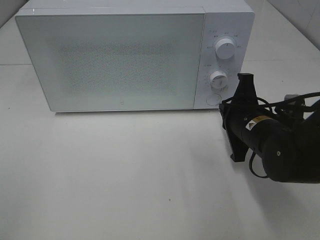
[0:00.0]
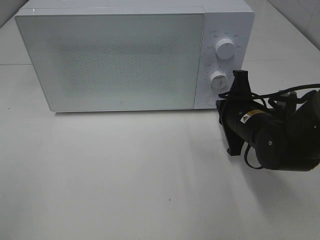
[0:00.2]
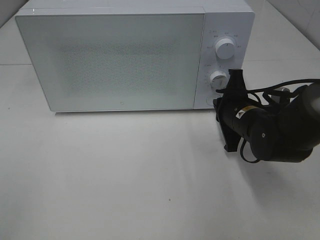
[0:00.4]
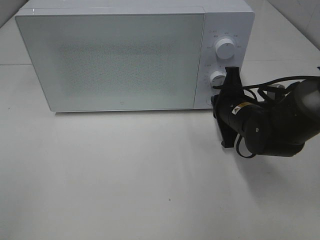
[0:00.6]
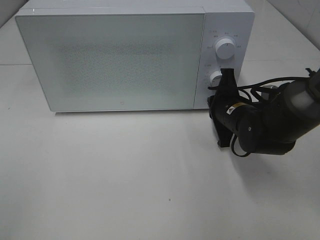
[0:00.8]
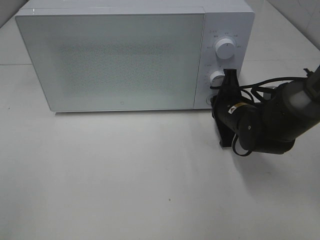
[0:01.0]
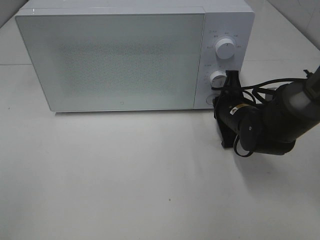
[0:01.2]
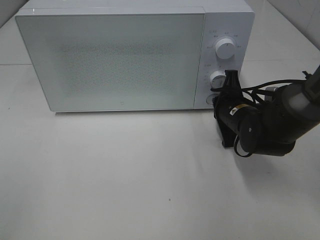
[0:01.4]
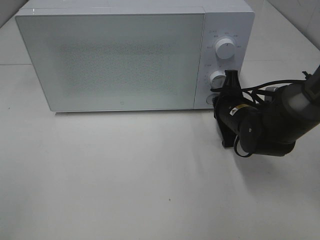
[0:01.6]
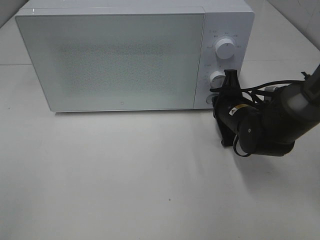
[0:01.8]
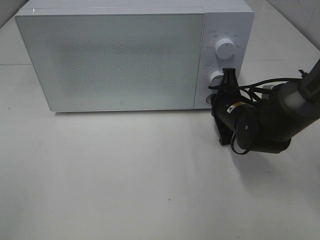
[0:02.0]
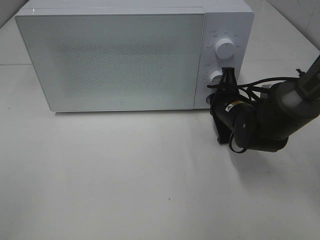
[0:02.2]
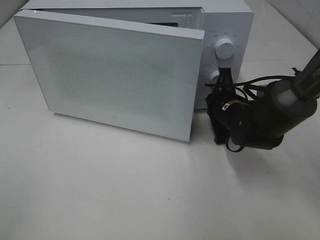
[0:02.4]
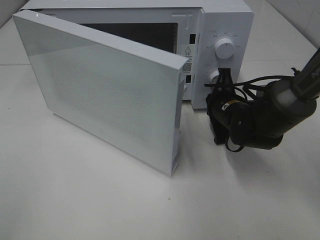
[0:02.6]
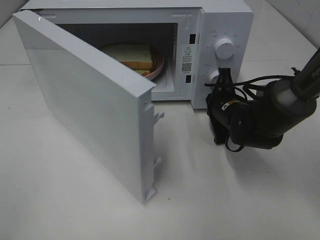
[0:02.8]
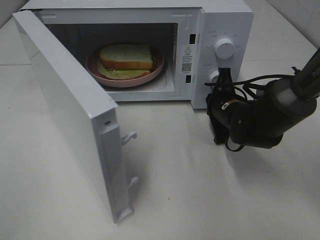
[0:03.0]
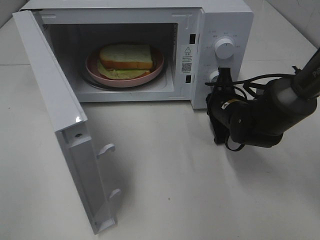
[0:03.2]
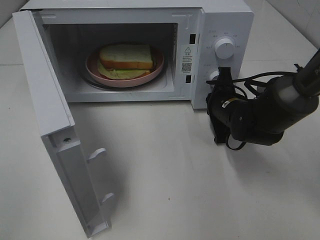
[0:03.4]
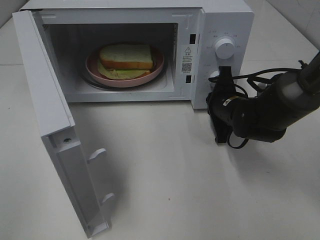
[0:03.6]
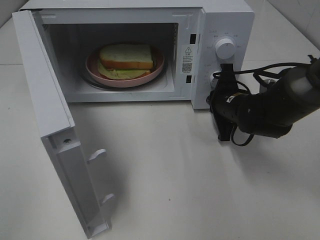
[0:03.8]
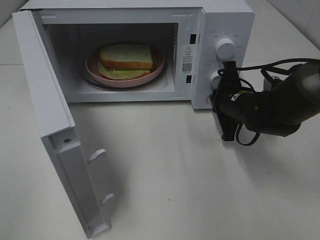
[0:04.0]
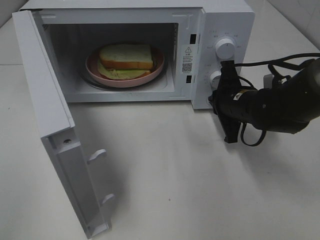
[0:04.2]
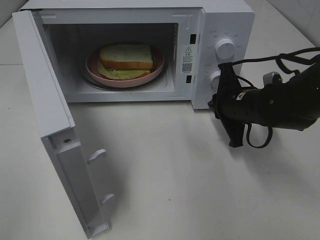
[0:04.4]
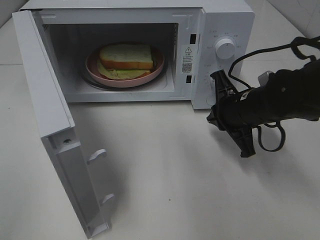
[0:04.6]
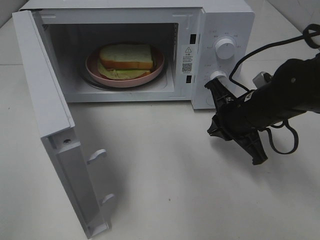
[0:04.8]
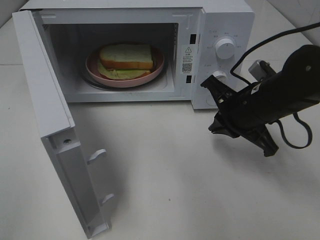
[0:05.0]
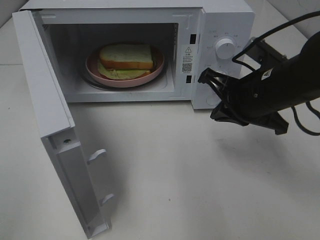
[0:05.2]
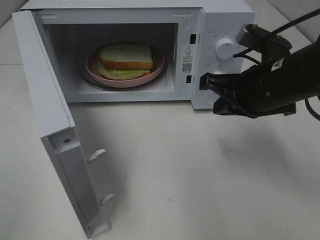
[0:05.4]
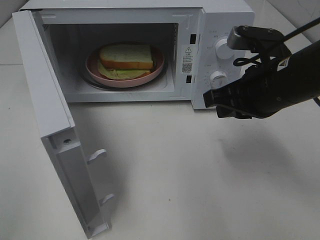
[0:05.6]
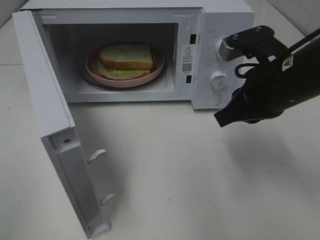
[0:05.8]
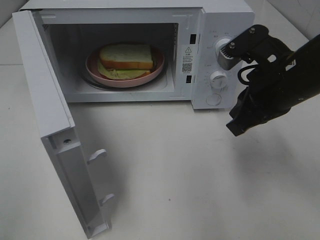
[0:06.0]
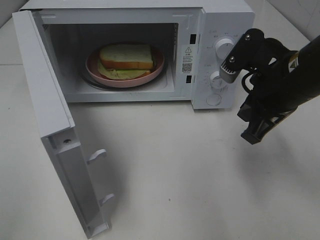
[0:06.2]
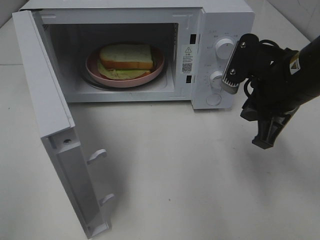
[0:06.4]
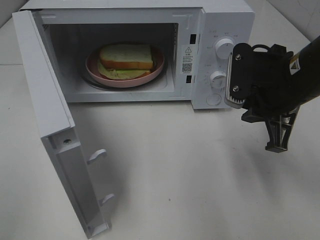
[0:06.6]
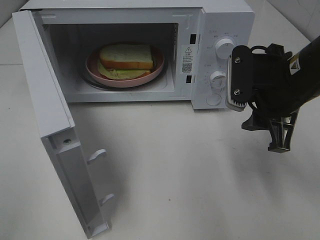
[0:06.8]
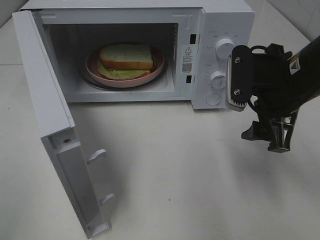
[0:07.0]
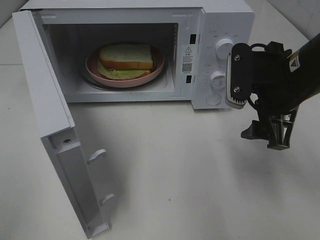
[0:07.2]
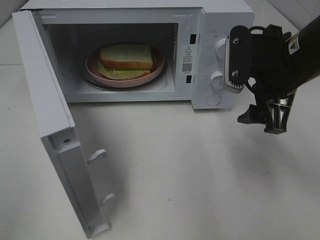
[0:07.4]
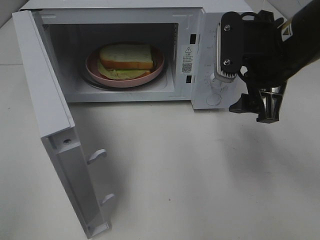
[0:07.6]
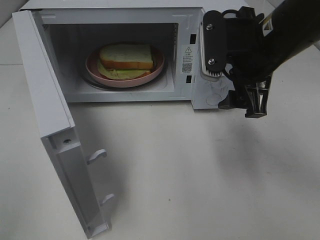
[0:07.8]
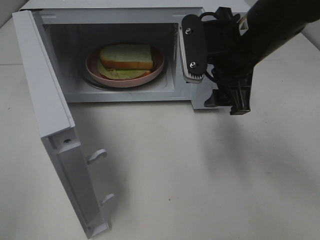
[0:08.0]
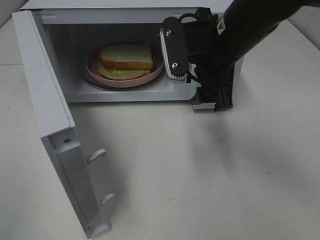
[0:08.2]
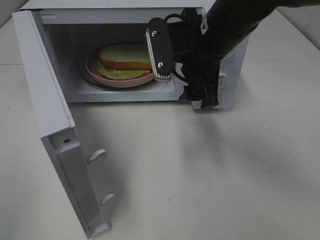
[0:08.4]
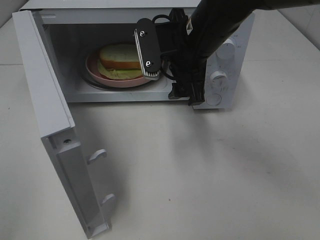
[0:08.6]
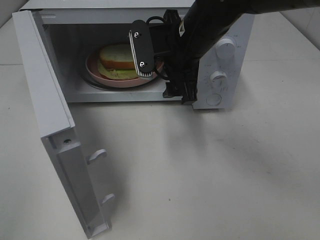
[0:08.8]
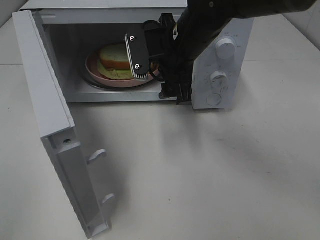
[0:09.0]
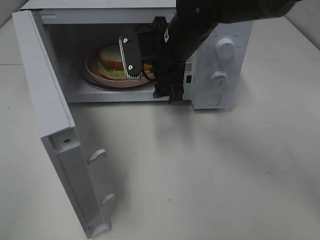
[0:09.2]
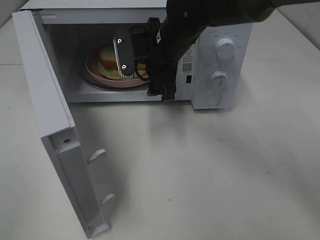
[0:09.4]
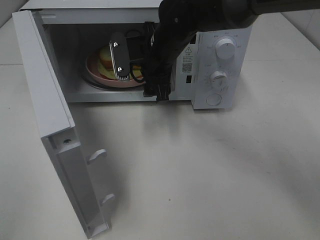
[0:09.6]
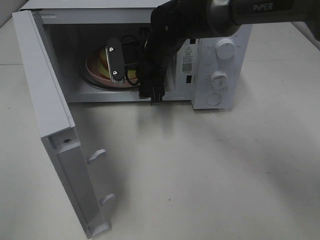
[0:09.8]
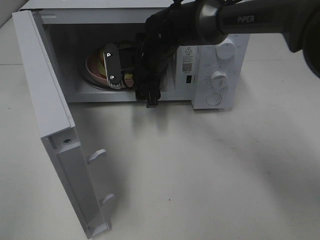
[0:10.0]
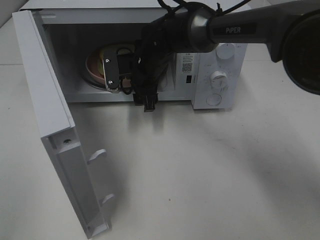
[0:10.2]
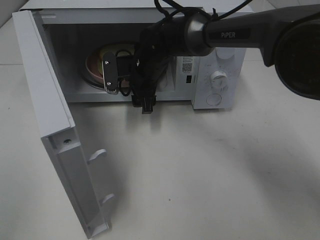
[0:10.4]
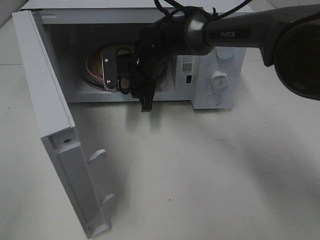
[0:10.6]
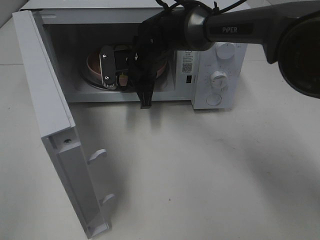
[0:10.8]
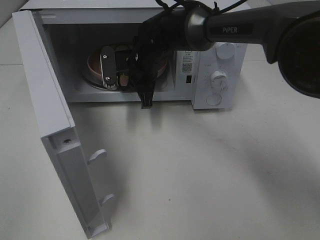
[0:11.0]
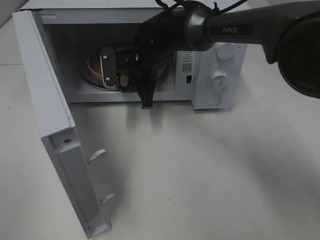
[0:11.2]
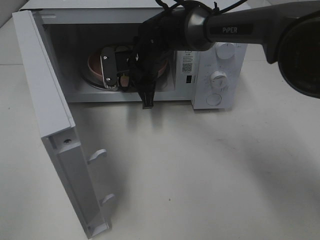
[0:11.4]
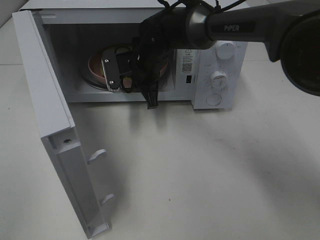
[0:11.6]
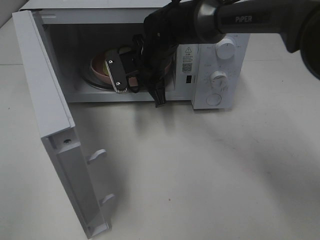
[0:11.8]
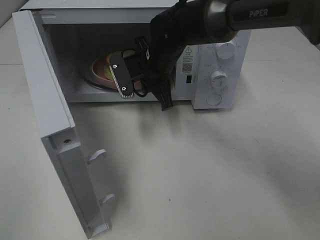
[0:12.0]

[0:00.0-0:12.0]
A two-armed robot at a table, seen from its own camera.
Task of the whole recording: Heat Sandwich.
Step, 0:00.0 to 0:04.4: Right hand: press the switch.
Step, 0:04.6 to 0:11.0: Right hand: grab the plate with the sandwich.
0:00.0 to 0:01.6: The right gripper goes some 5 cm forward.
0:03.0 to 0:04.4: The right gripper ends up roughly 5 cm from where it was.
0:04.4 to 0:06.0: The right gripper travels upward and backward by some 15 cm.
0:06.0 to 0:07.6: The right gripper opens up.
0:07.6 to 0:09.0: The right gripper heads to the left and forward, covering some 15 cm.
0:09.0 to 0:10.4: The right gripper travels downward, forward and to the left by roughly 15 cm.
0:10.4 to 0:12.0: The right gripper closes its fingers.

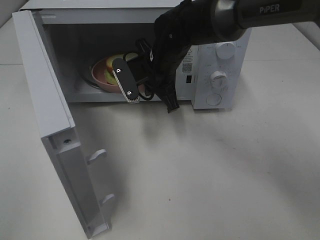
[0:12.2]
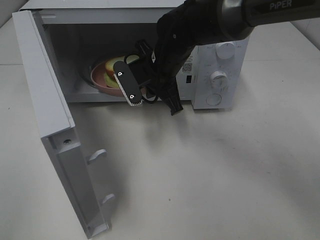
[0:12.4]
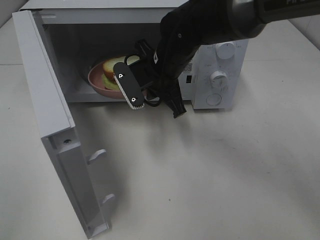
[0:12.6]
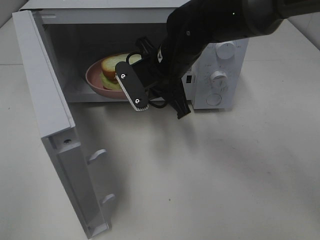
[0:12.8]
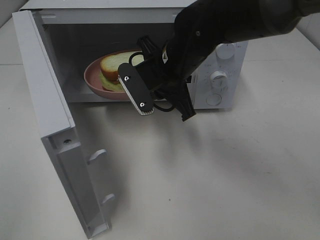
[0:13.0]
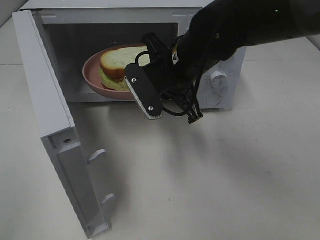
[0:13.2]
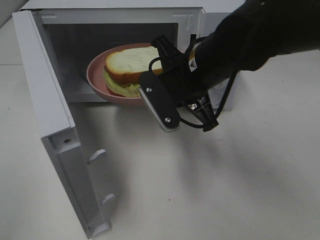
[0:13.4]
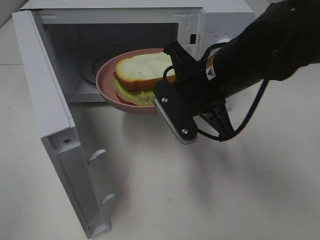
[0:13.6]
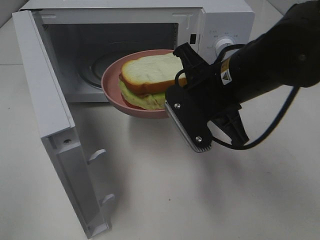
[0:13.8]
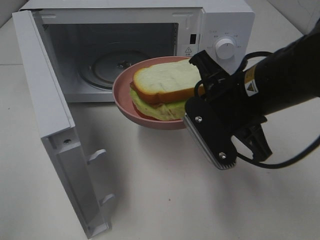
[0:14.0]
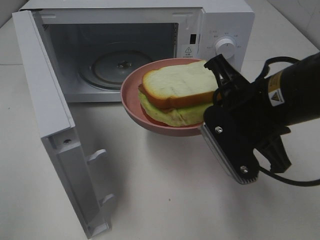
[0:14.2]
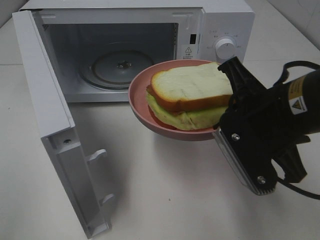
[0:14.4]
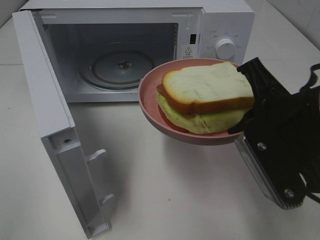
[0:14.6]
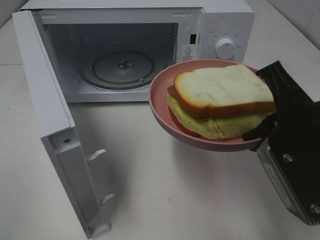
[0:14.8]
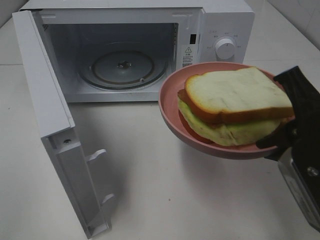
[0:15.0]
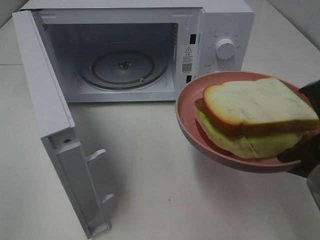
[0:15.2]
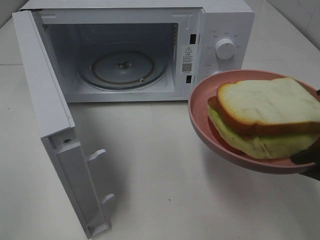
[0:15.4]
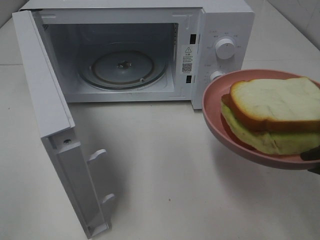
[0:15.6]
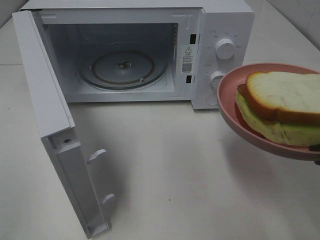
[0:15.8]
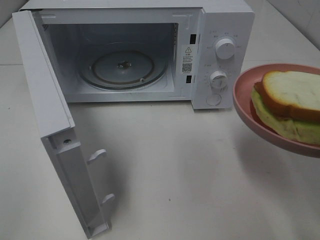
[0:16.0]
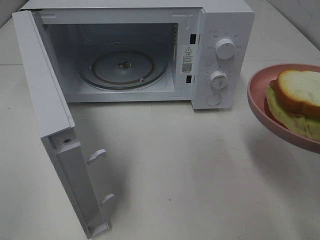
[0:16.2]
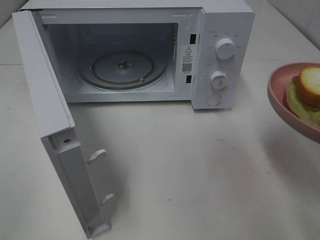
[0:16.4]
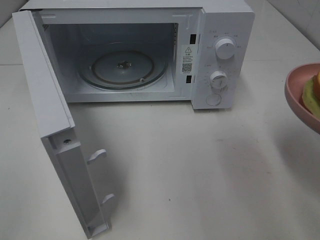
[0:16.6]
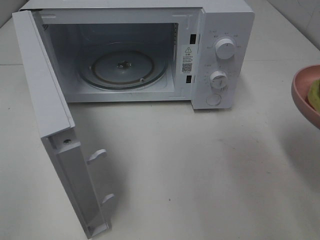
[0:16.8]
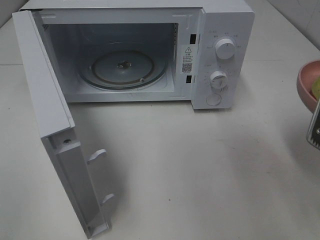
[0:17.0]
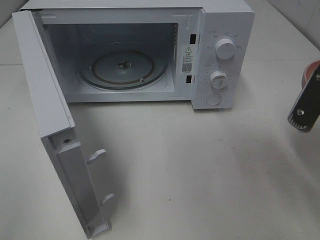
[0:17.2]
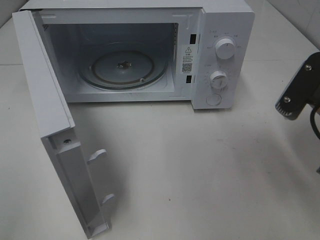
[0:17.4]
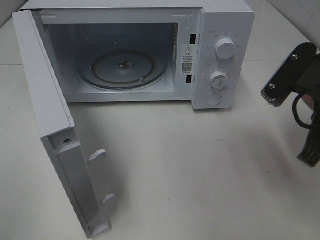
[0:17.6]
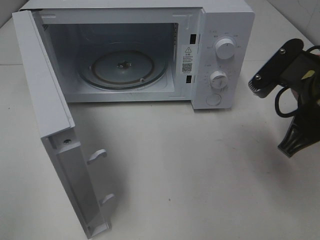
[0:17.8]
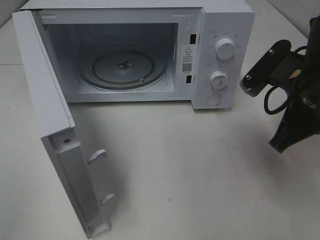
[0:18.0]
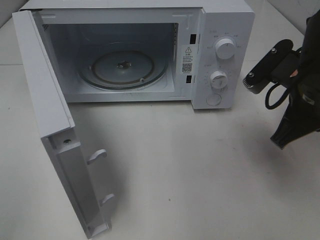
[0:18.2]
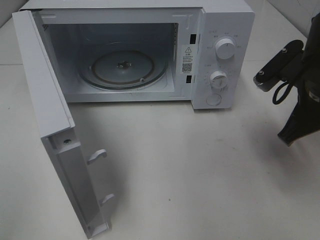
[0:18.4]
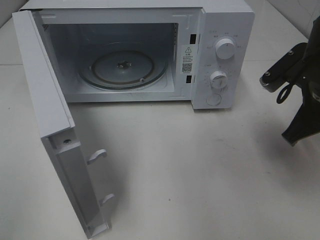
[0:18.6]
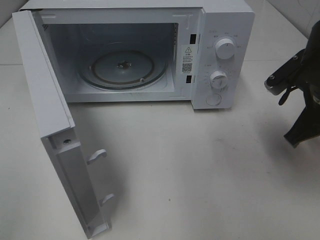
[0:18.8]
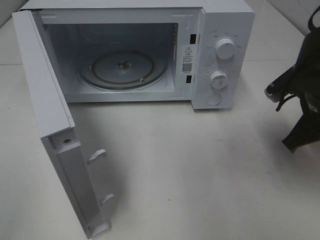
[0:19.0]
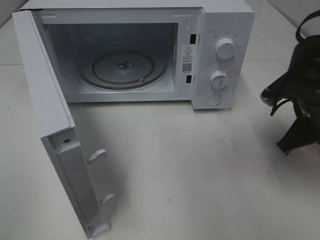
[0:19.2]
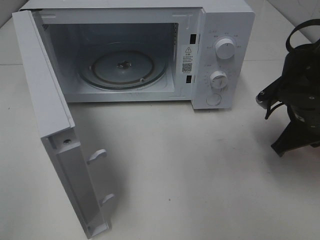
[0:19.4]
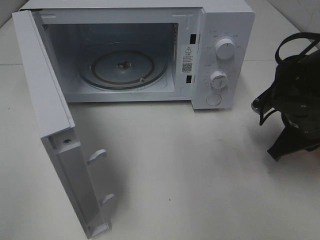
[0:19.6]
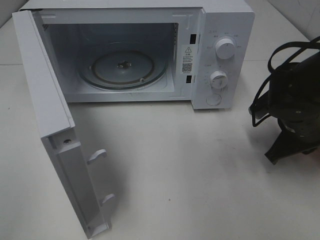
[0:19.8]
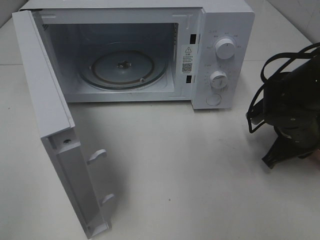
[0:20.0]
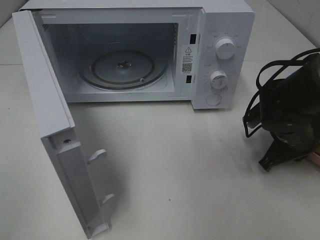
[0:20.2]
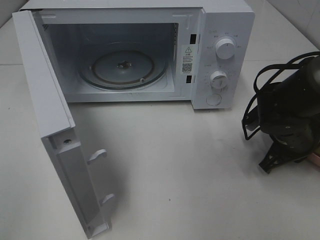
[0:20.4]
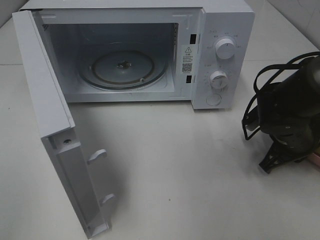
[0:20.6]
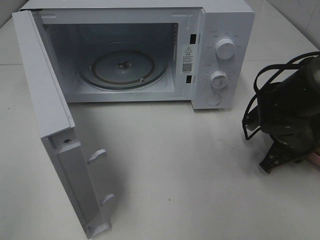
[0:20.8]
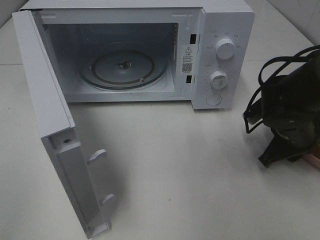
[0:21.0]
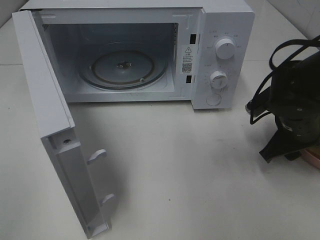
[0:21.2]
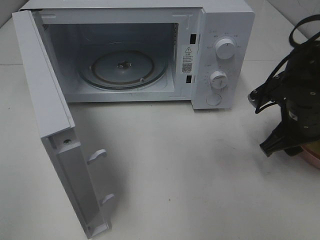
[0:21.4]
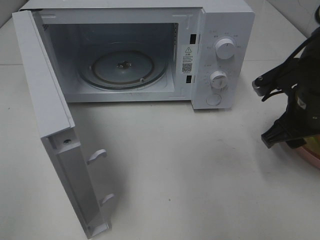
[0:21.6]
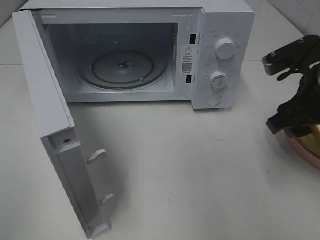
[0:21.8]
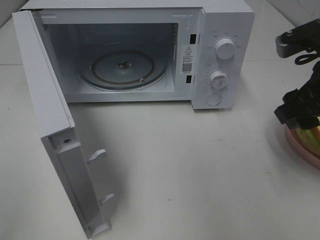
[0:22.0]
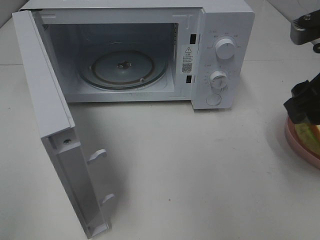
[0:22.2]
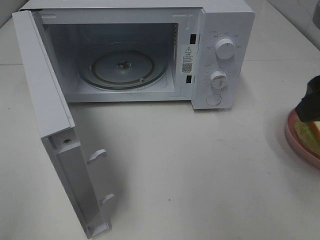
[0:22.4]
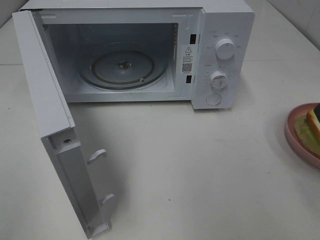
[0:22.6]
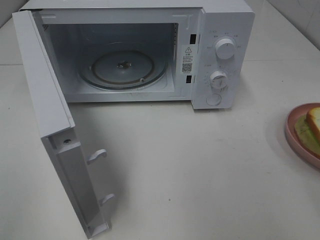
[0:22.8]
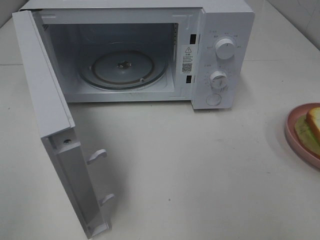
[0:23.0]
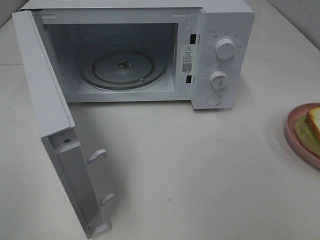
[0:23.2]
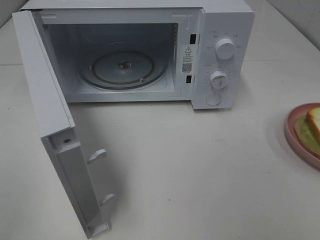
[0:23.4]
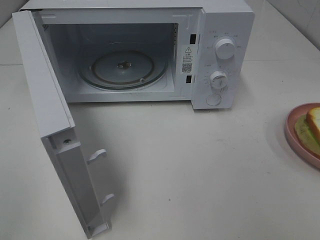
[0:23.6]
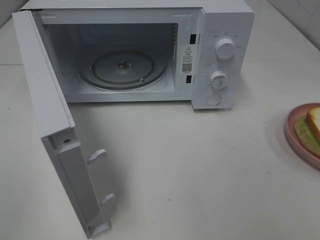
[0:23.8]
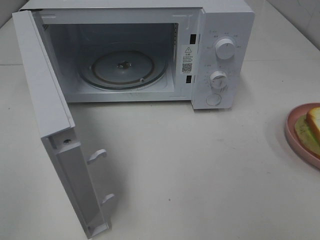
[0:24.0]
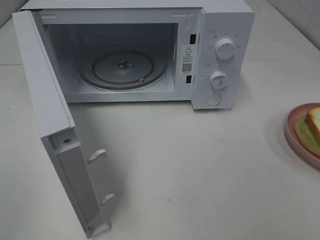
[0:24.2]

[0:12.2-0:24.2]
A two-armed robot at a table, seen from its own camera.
Task of the whole recording: Heat Sandwich.
Step, 0:12.2 to 0:21.8: Right hand: place the plate on the table.
0:12.2 to 0:13.8: The right gripper goes some 15 cm backward and to the right.
0:13.8 to 0:15.2: The right gripper goes about 15 cm backward and to the right.
0:16.6 to 0:18.2: The right gripper shifts some 15 cm forward and to the left.
0:18.2 to 0:19.8: The right gripper is displaced downward by roughly 10 cm.
0:19.8 to 0:21.2: The right gripper opens its fingers.
0:21.2 to 0:22.6: The right gripper travels upward and backward by roughly 25 cm.
